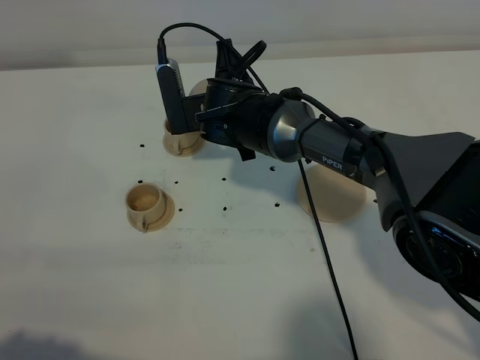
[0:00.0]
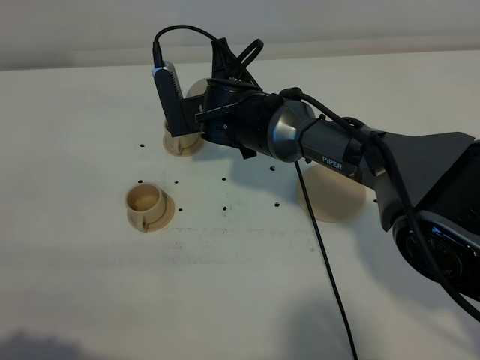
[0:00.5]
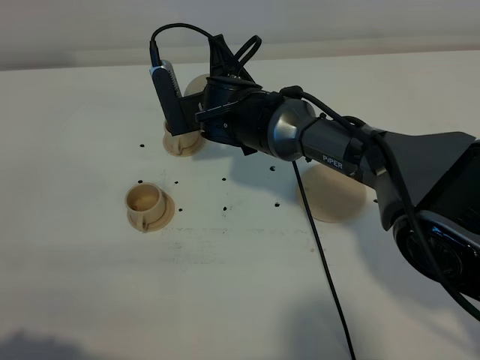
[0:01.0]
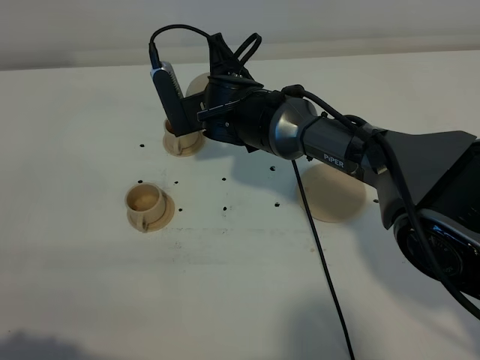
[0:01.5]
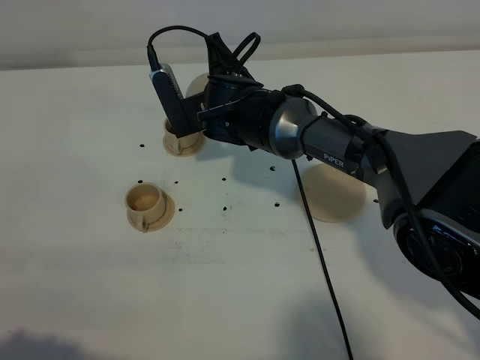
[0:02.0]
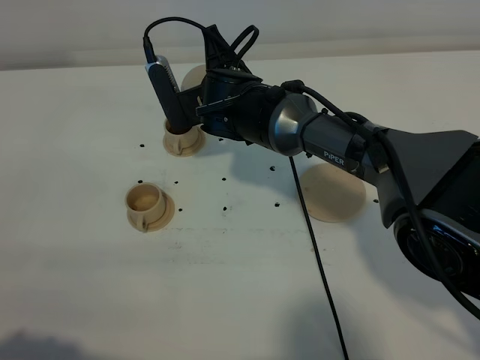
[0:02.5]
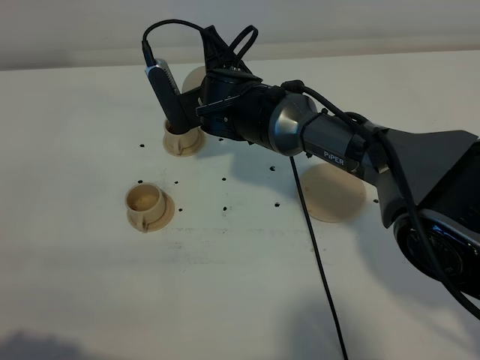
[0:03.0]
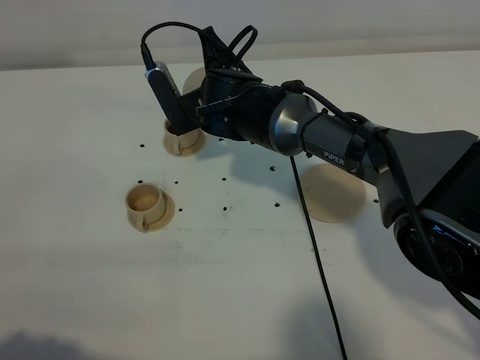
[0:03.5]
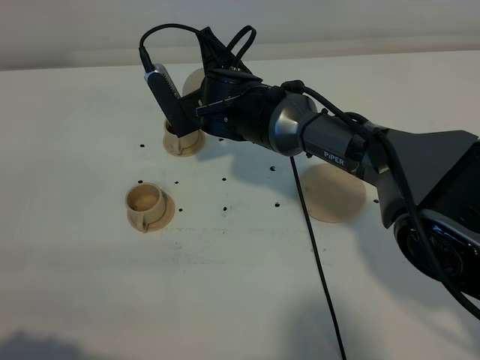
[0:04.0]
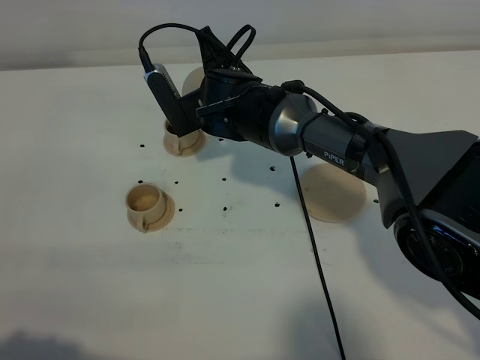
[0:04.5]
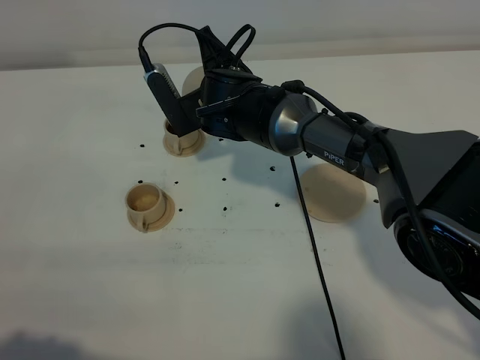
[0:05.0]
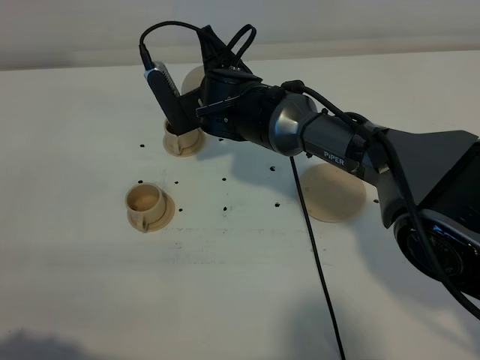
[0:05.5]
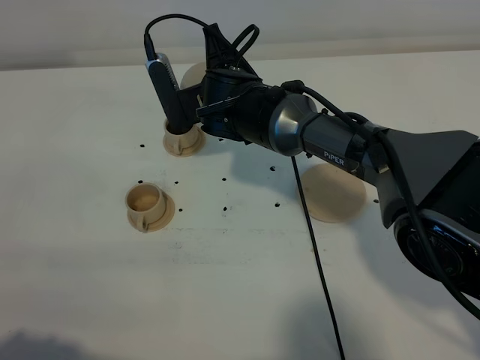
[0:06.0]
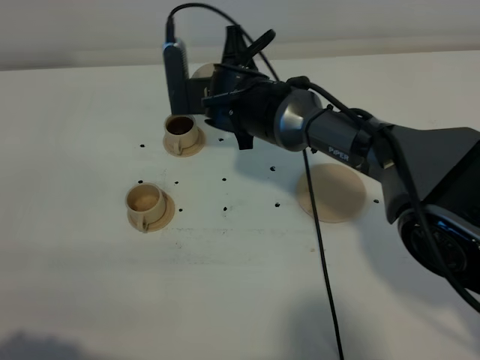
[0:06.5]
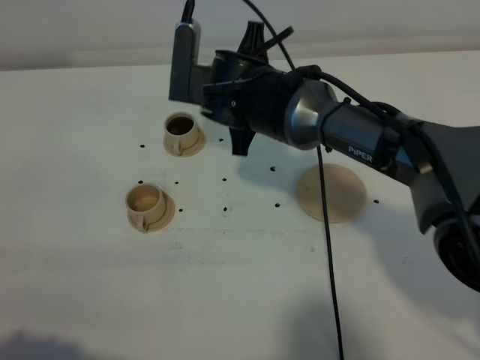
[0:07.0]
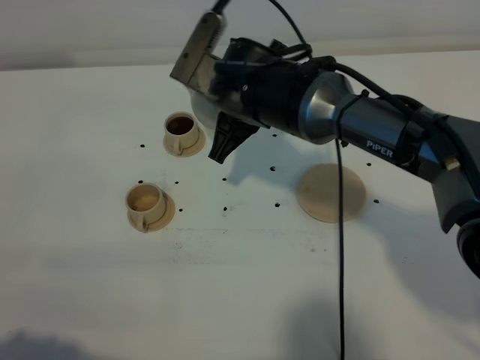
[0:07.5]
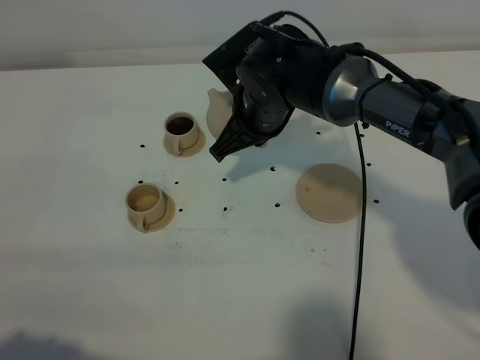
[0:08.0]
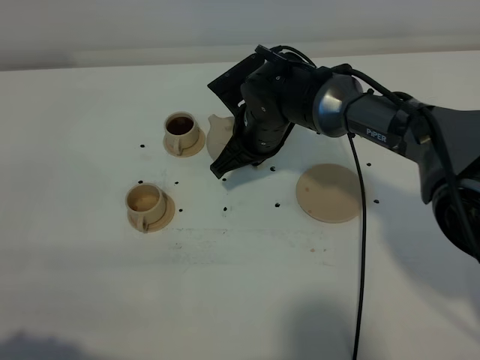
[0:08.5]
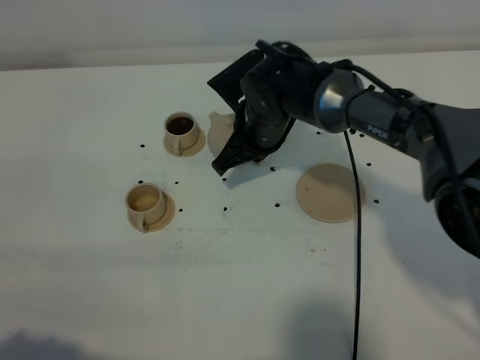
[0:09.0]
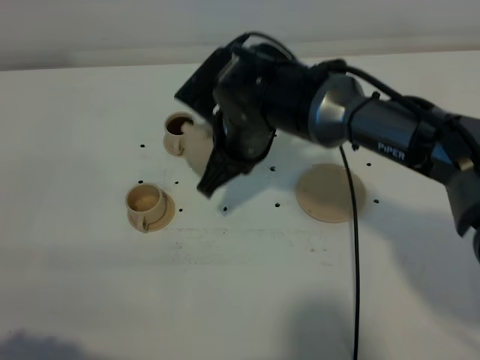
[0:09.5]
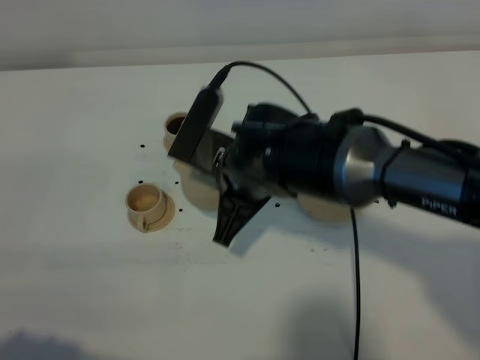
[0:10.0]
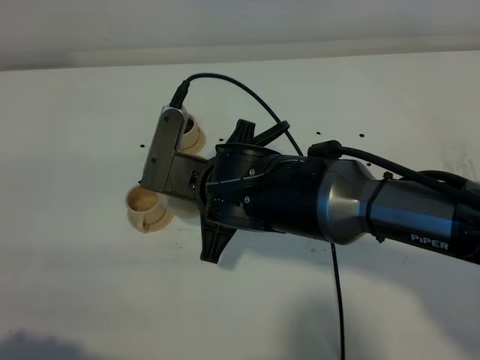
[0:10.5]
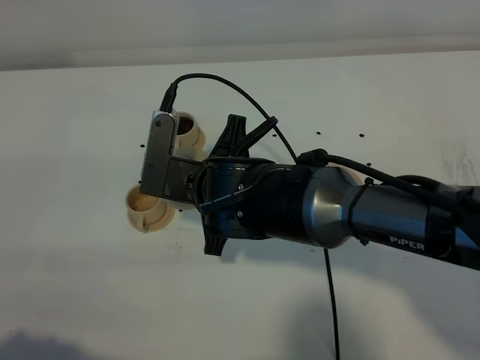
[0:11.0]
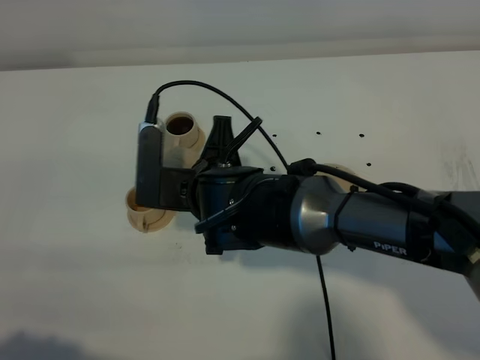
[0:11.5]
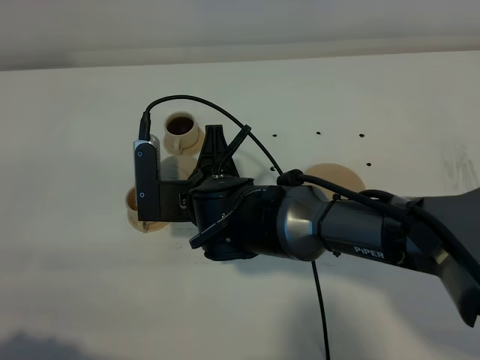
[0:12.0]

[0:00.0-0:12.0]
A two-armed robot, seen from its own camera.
Task of the whole recording: grasp the brown teapot and pour the tea into the two brown teacups one by one, put the brown teapot back in its original place.
0:00.0 to 0:06.0: The grippers move only a little.
0:06.0 to 0:08.0: The right gripper moves roughly 5 cm.
0:08.0 to 0:10.0: The right gripper travels backward by about 10 cm.
0:10.0 to 0:12.0: The right gripper ends up approximately 5 cm from where it was.

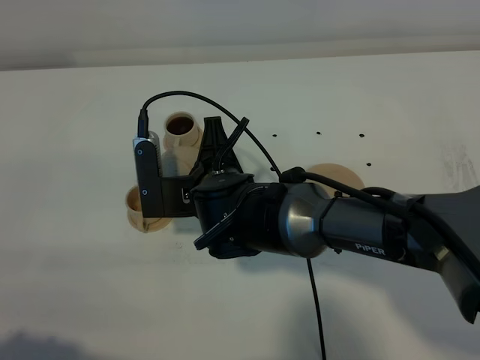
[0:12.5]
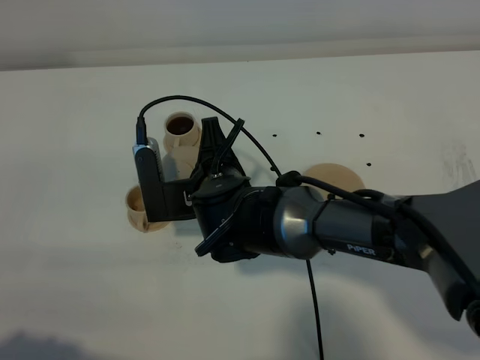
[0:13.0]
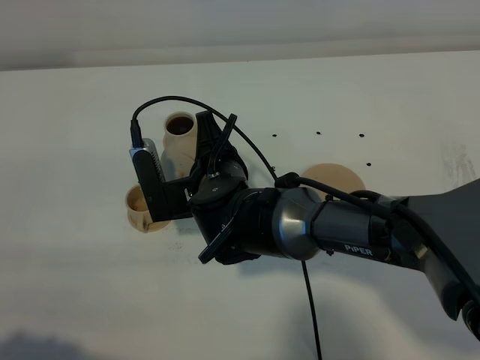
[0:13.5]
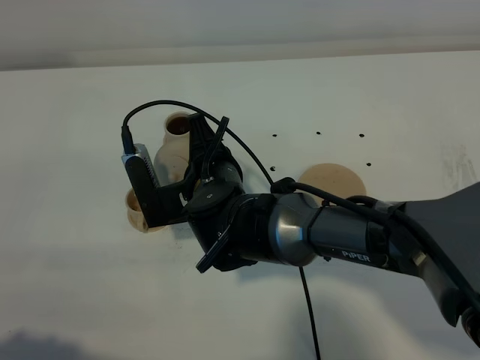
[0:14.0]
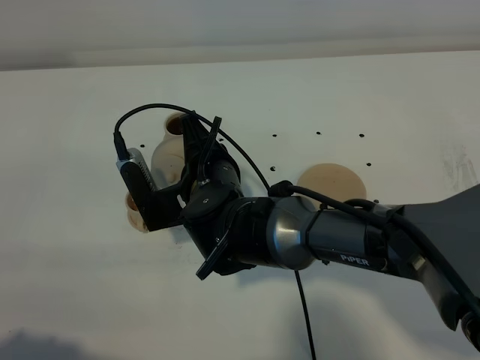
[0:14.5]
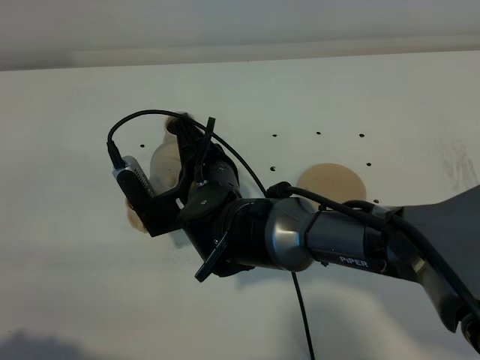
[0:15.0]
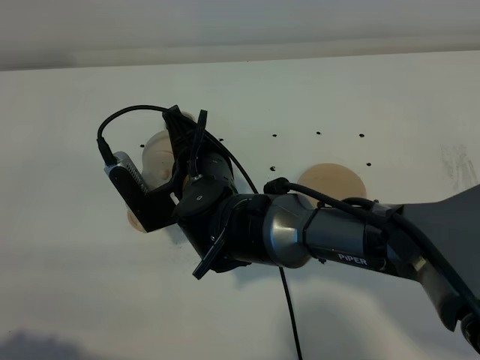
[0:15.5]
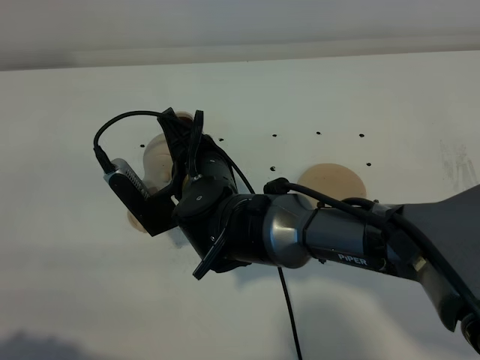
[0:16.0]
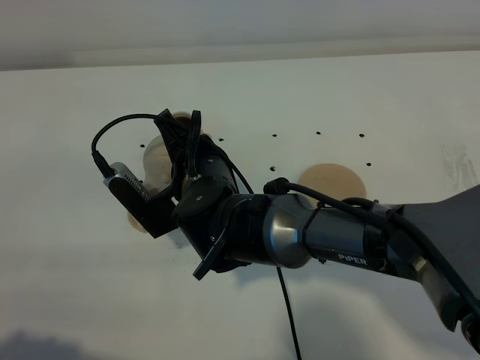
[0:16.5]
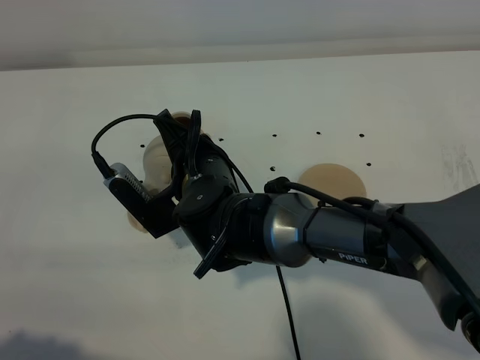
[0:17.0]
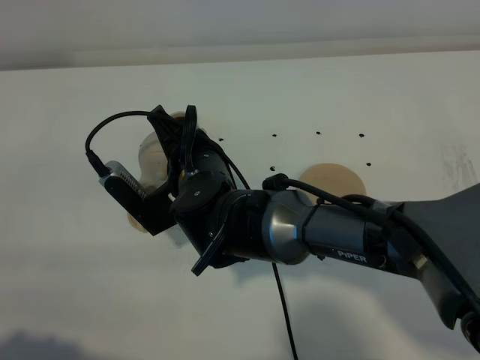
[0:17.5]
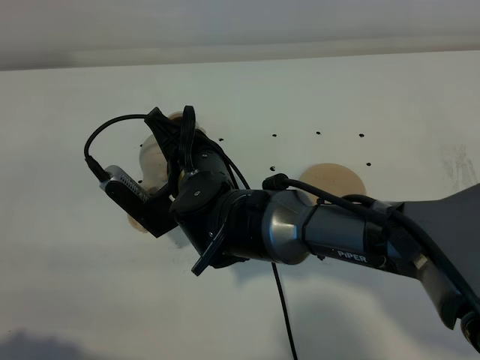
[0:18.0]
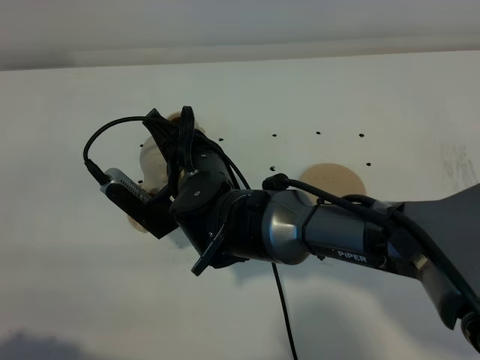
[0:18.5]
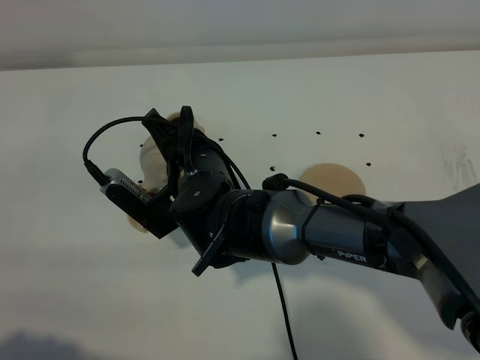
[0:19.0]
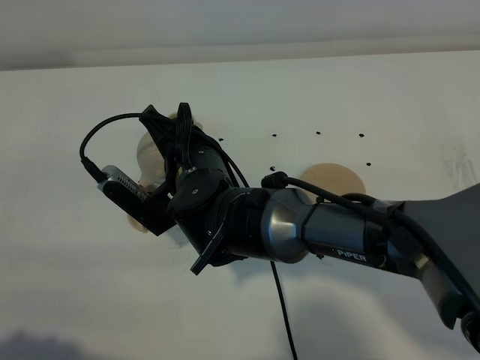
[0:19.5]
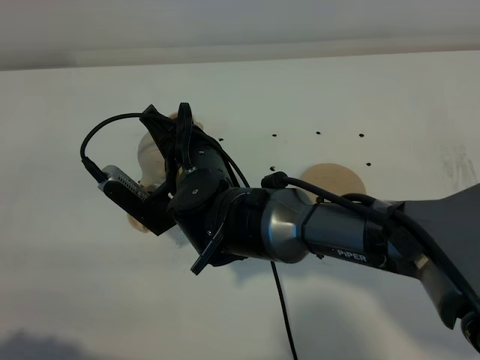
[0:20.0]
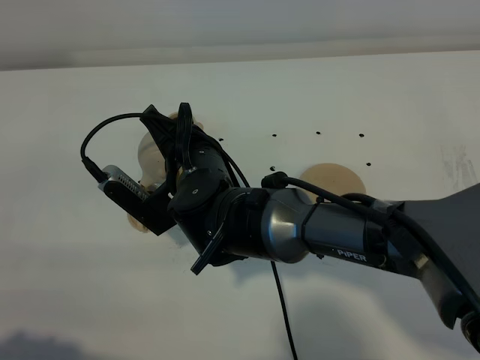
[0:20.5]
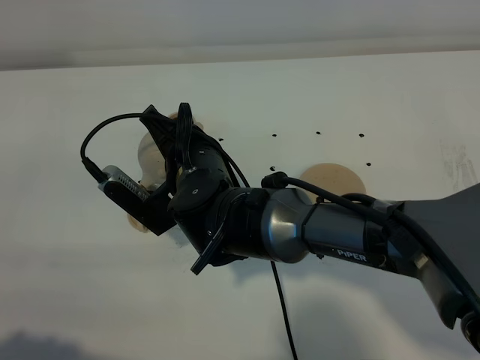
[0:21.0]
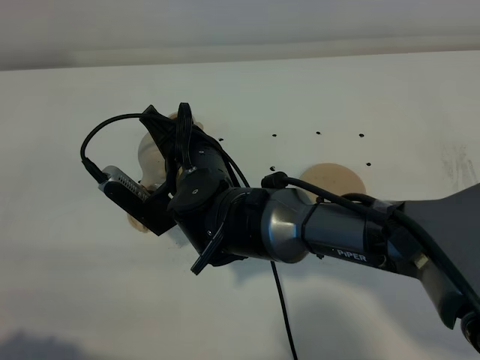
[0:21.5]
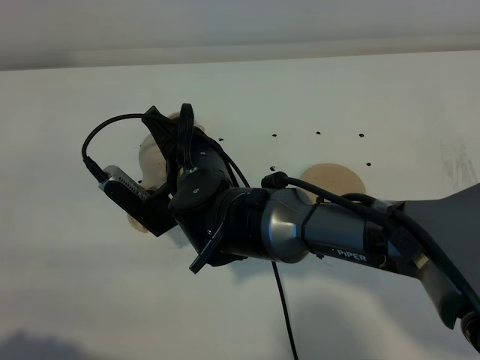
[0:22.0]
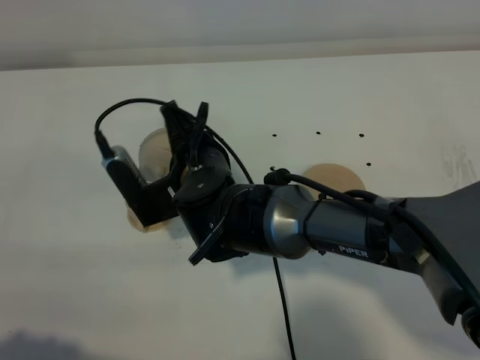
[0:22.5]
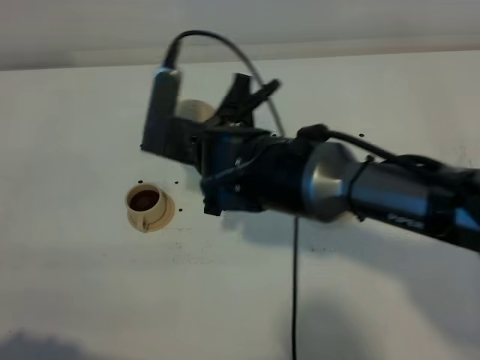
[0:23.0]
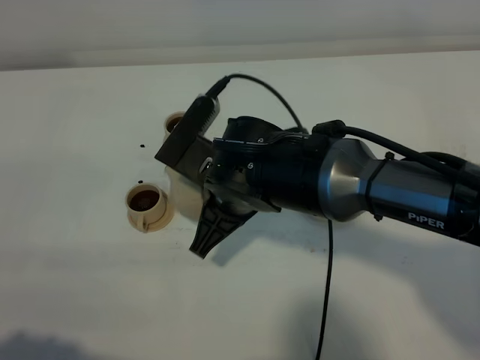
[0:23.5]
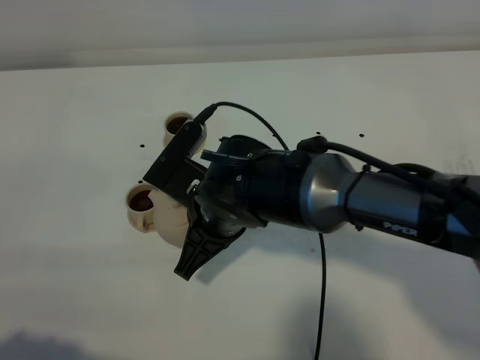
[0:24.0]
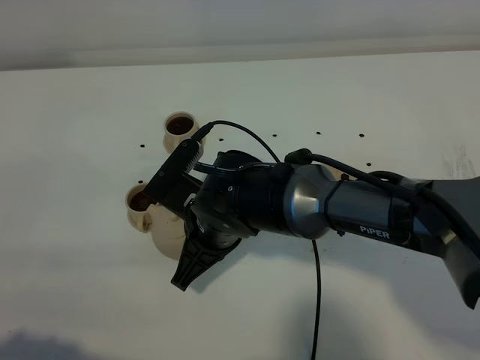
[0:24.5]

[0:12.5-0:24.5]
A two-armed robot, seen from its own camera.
Task of the whole recording: grasp the brown teapot and pour the tea into the two brown teacups one by one, put the brown teapot back in its original place.
Step, 0:12.5 to 0:22.5: Pour tea into the teacup with the right gripper.
0:12.5 to 0:14.5: There are only small adjustments of the grippers.
0:14.5 to 0:16.5: The grippers stay close to where they were, moving slightly.
0:16.5 to 0:18.5: There are only small adjustments of the grippers.
0:18.5 to 0:20.5: Both grippers stay about where they are.
0:20.5 to 0:22.5: The grippers make only small movements.

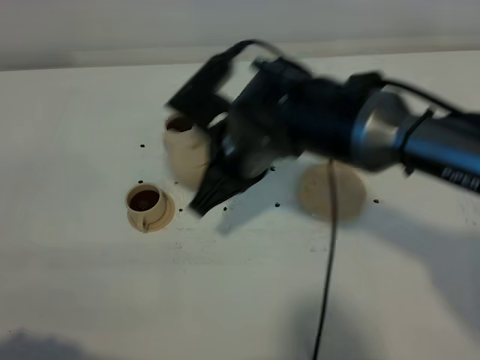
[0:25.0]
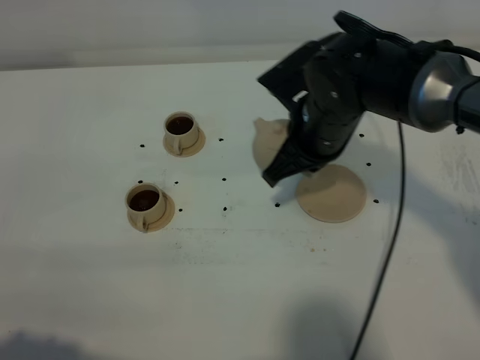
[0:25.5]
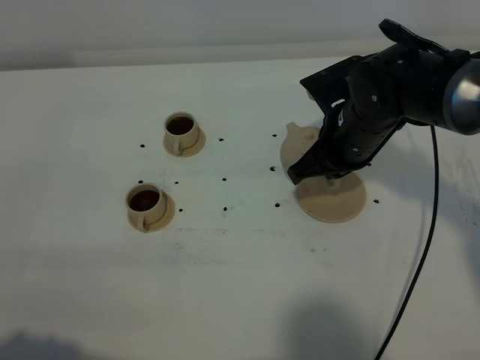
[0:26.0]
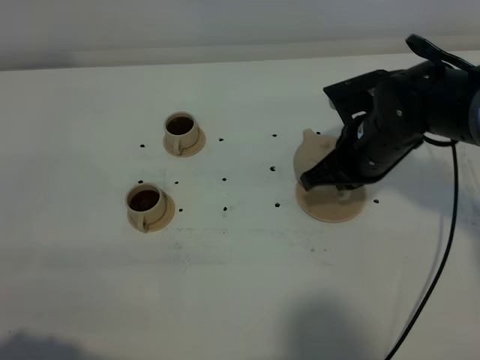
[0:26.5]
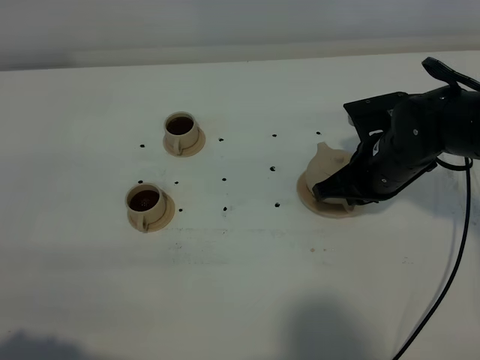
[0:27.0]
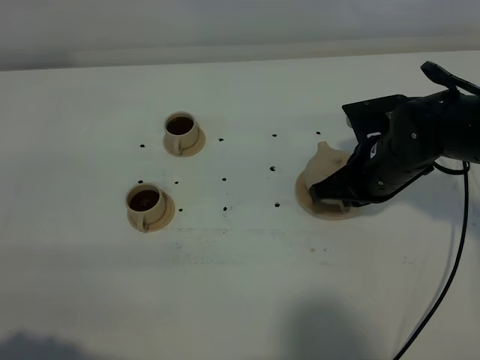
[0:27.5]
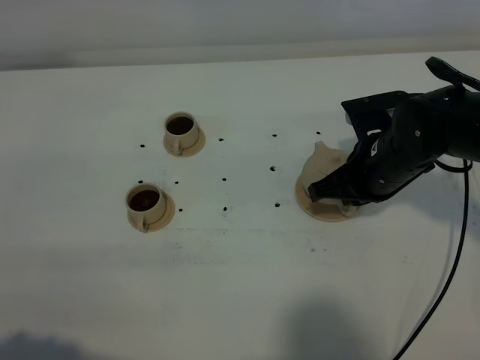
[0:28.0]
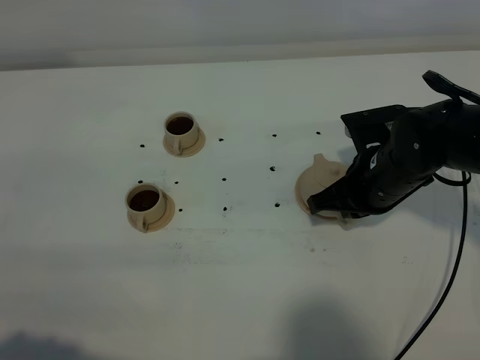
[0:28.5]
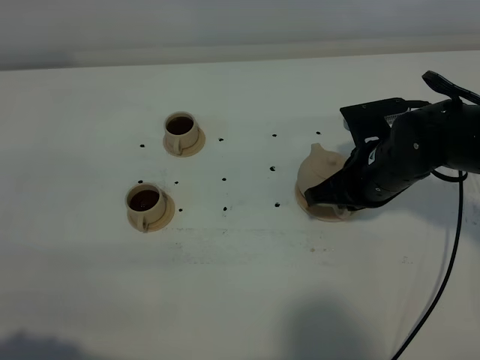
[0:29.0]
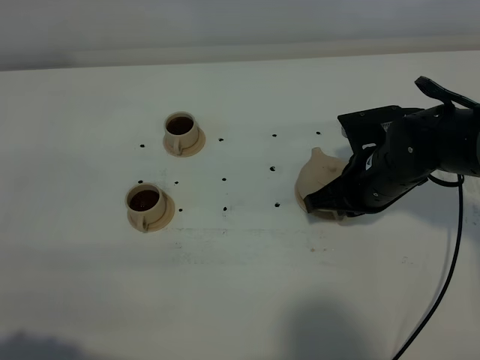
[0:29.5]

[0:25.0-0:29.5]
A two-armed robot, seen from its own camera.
Task of the whole recording: grasp the brown teapot and pour the tea into the two brown teacups one by one, put the brown teapot back in its original place.
0:25.0 to 0:27.0: The right gripper is displaced to the right and downward by about 15 cm.
0:27.0 to 0:29.5: The grippers move only a little.
